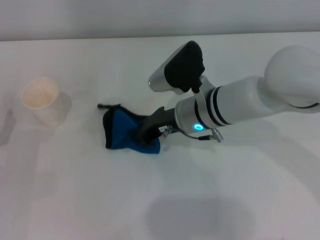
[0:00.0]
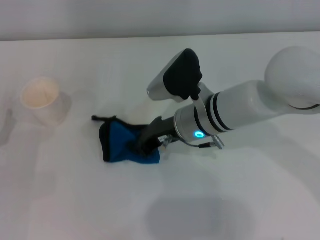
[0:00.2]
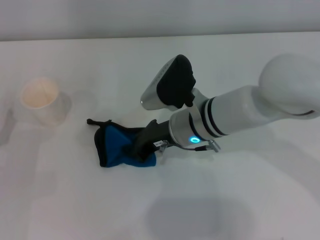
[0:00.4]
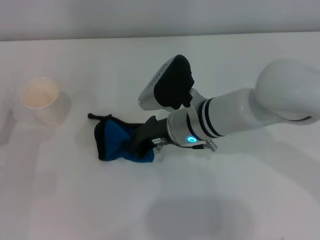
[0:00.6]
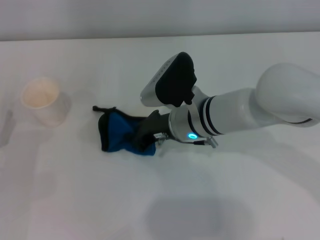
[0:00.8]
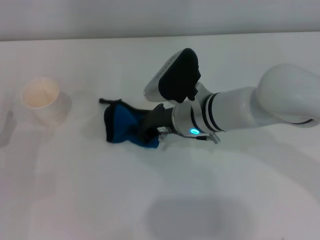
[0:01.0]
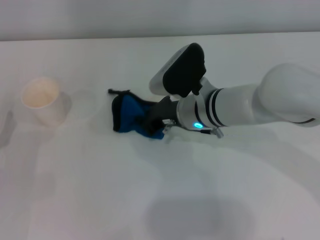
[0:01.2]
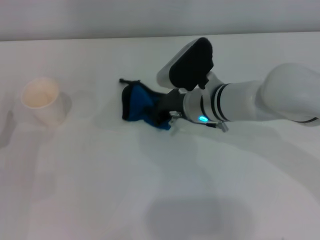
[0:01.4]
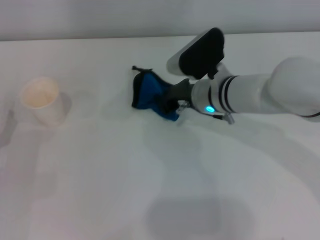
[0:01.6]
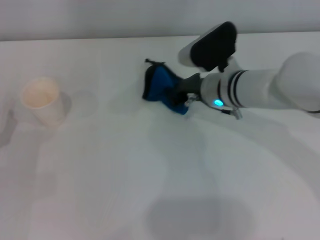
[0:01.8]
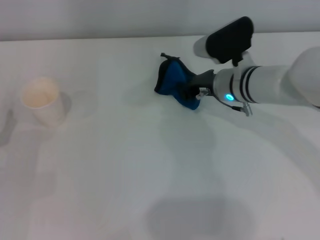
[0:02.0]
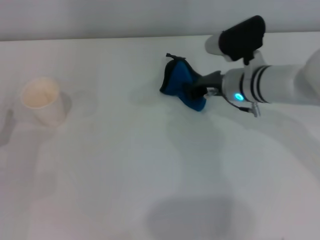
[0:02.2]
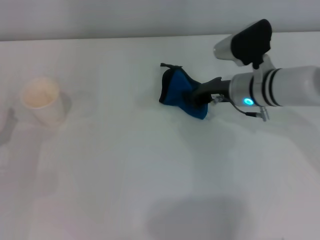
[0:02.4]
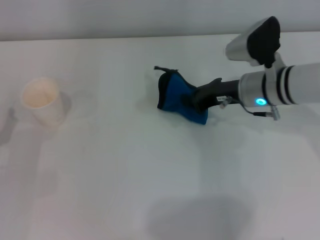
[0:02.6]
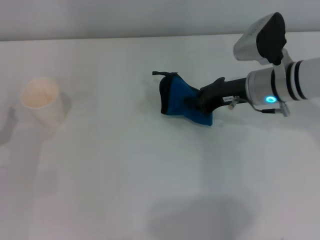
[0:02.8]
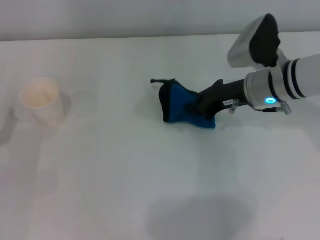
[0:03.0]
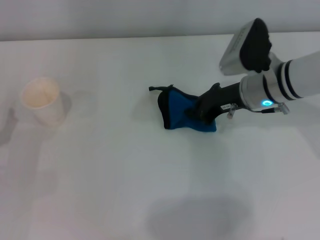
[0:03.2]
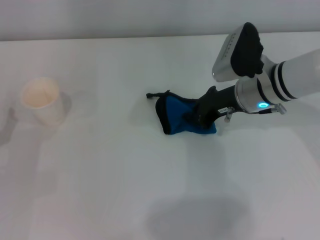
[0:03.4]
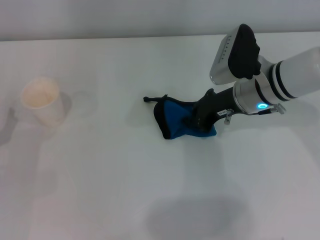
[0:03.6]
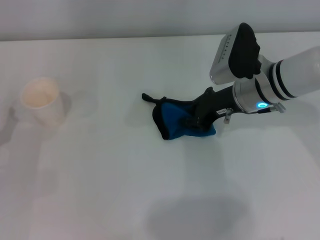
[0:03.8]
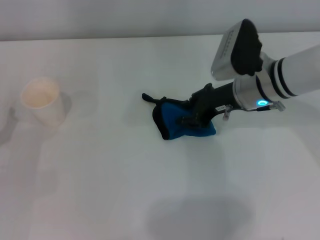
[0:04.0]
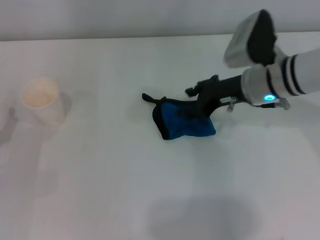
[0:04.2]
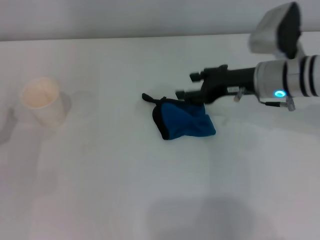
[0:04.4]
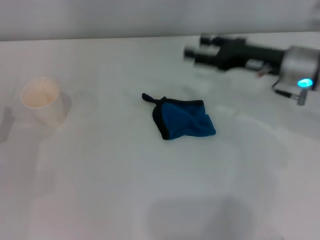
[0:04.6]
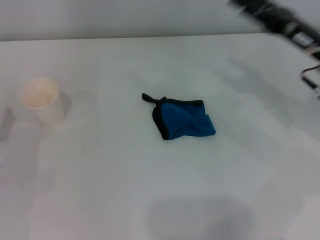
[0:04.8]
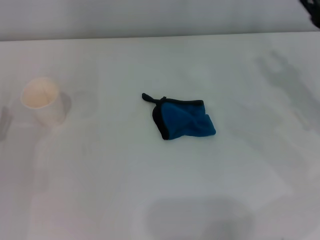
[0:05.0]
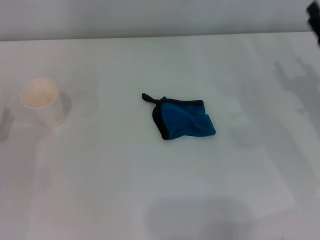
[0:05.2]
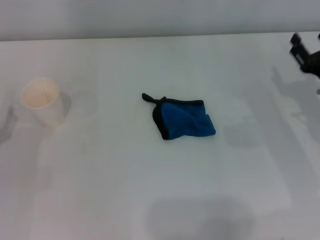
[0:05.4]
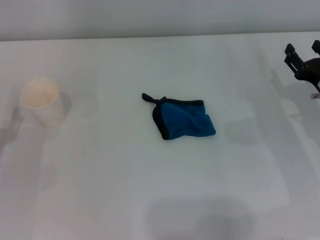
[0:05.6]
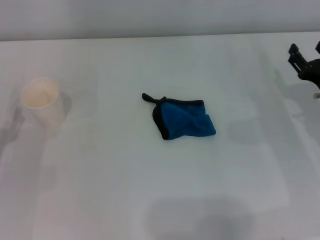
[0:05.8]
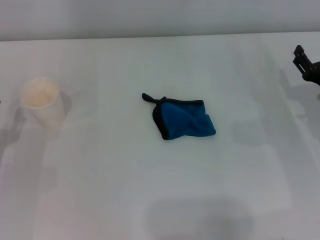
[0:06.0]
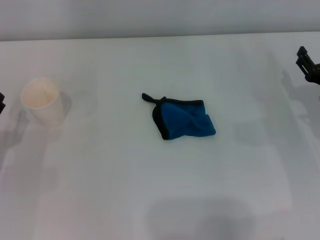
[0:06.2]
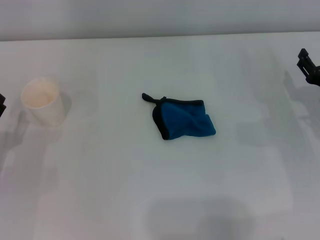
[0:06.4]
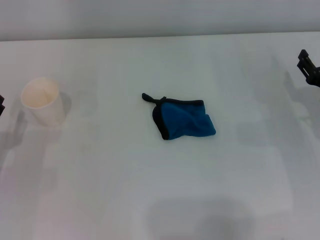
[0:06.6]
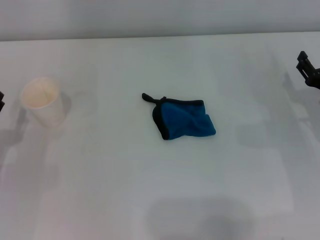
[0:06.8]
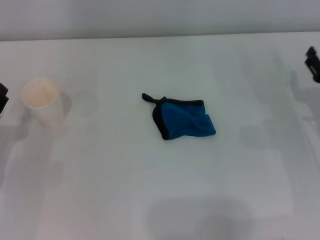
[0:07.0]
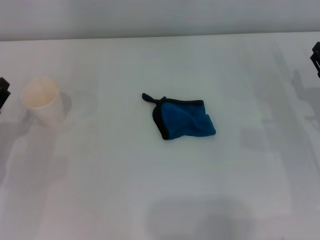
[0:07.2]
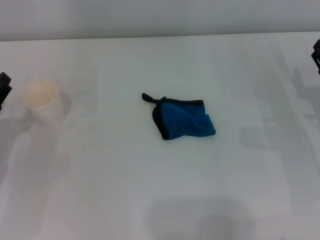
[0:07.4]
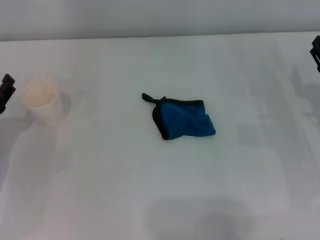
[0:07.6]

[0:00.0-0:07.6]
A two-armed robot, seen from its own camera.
Step, 0:00.0 to 0:02.8: Wipe the stains off the table with the right gripper.
Step, 0:03.2 to 0:03.6: Place the rag on the table with the right gripper.
0:00.0 to 0:01.6: The grippers move only a little.
0:01.6 to 0:03.0: The right gripper is displaced to the right by roughly 10 cm.
0:03.0 to 0:04.6: The right gripper changes place by some 5 cm, and opens its fingers.
0:04.6 to 0:06.0: The right gripper heads downward, to the right and backward, covering about 15 cm.
